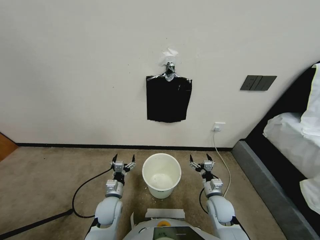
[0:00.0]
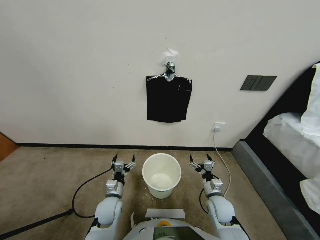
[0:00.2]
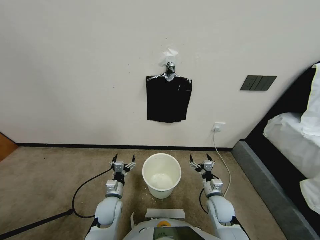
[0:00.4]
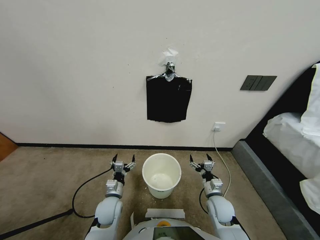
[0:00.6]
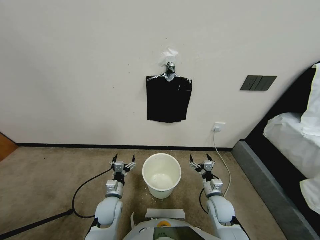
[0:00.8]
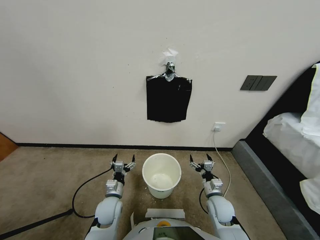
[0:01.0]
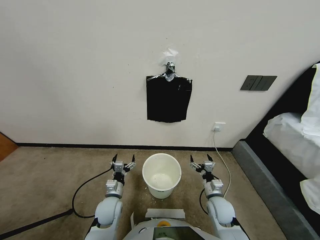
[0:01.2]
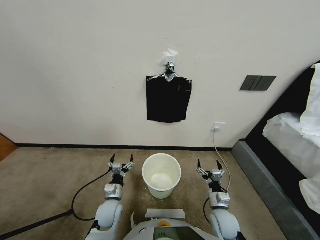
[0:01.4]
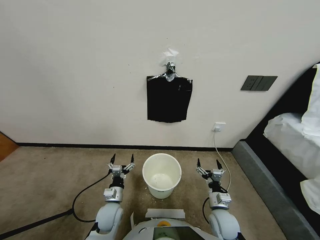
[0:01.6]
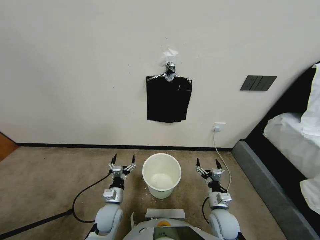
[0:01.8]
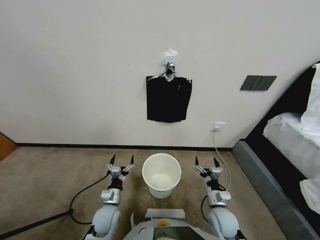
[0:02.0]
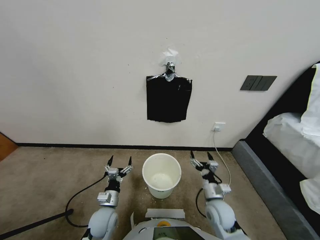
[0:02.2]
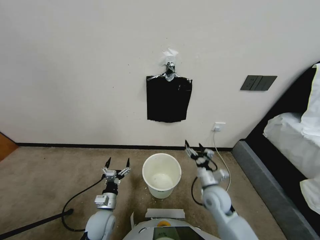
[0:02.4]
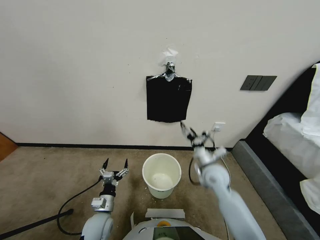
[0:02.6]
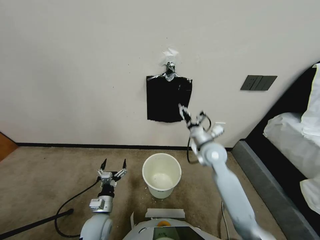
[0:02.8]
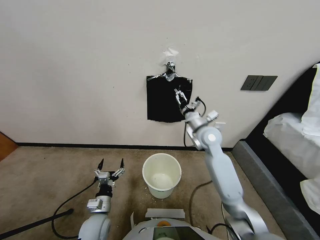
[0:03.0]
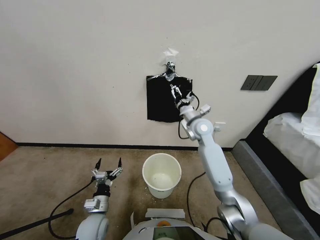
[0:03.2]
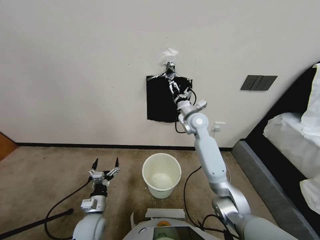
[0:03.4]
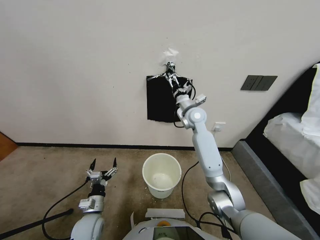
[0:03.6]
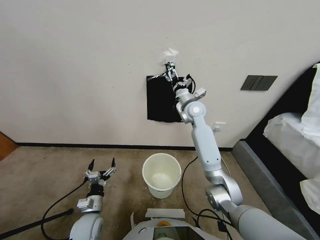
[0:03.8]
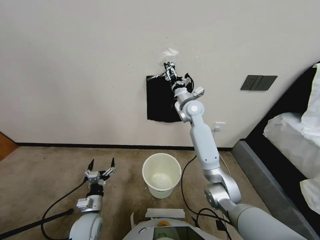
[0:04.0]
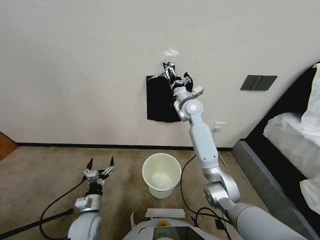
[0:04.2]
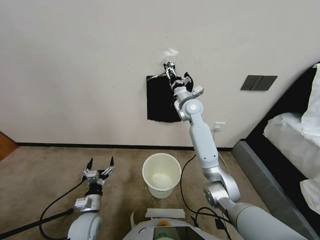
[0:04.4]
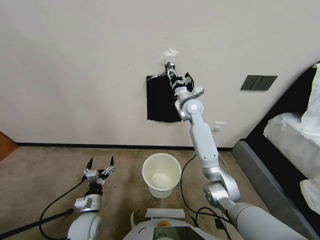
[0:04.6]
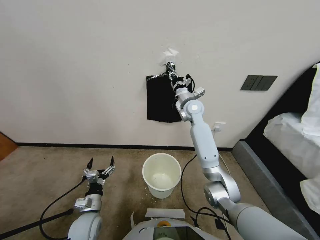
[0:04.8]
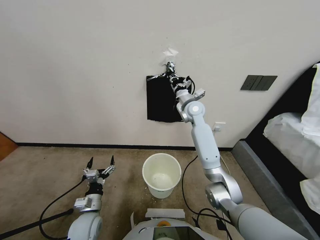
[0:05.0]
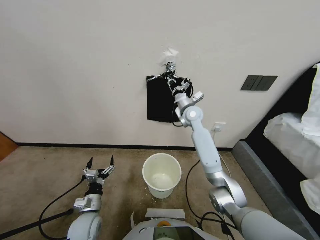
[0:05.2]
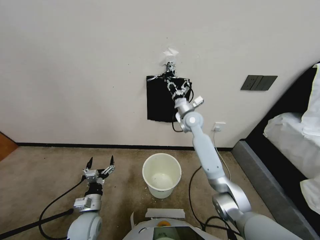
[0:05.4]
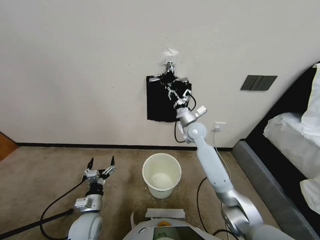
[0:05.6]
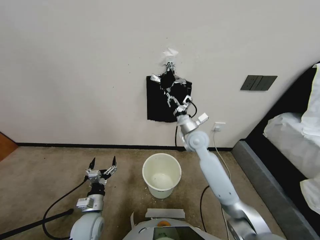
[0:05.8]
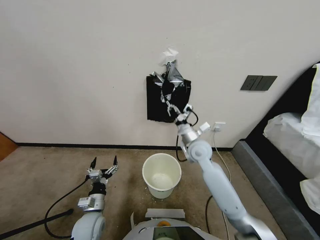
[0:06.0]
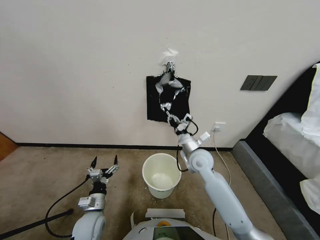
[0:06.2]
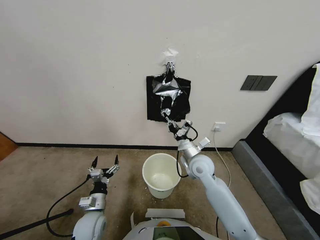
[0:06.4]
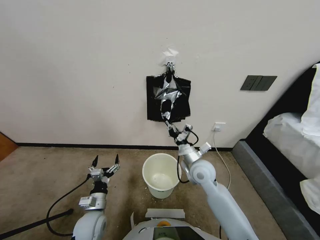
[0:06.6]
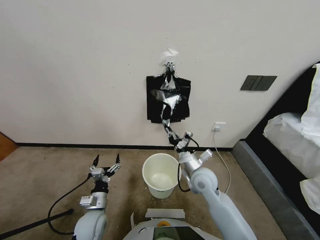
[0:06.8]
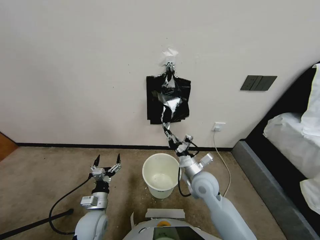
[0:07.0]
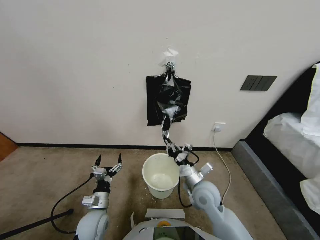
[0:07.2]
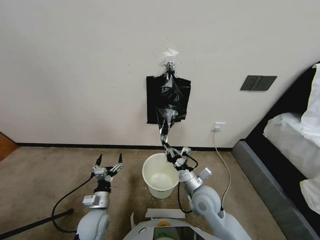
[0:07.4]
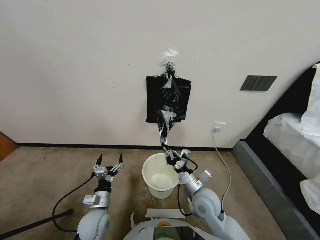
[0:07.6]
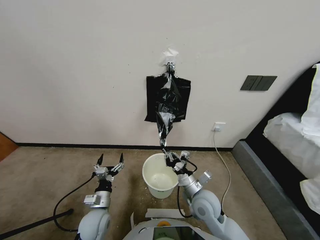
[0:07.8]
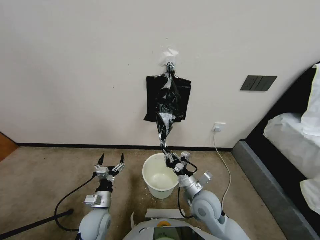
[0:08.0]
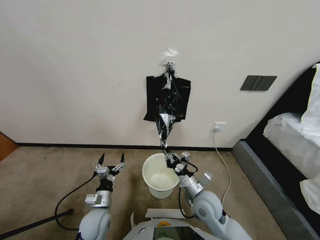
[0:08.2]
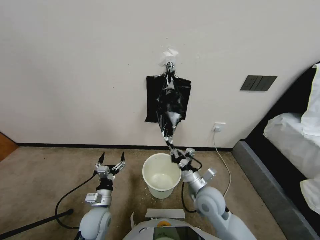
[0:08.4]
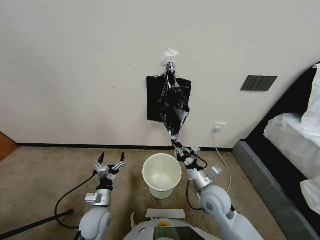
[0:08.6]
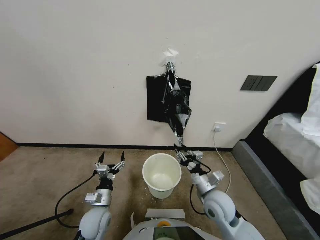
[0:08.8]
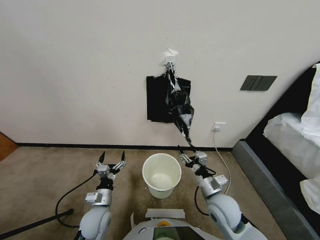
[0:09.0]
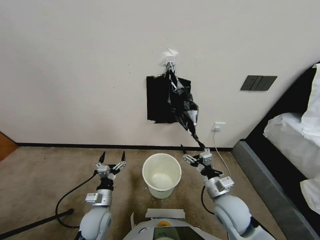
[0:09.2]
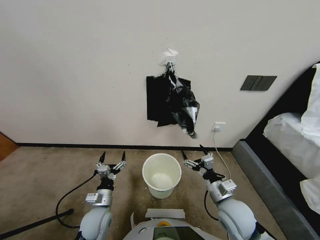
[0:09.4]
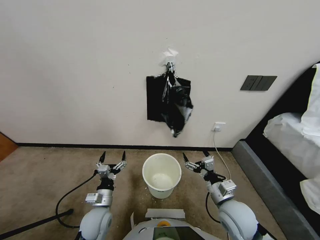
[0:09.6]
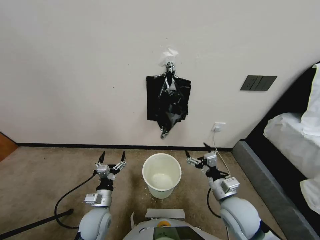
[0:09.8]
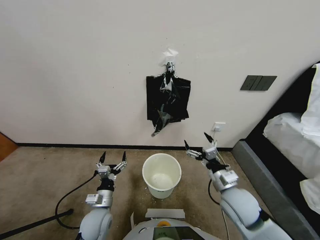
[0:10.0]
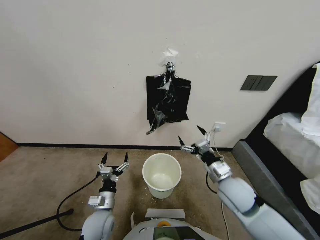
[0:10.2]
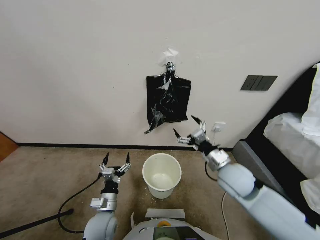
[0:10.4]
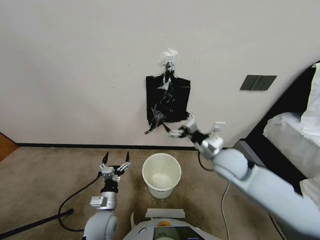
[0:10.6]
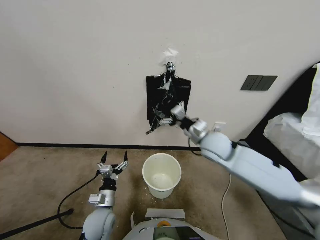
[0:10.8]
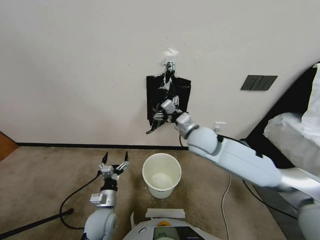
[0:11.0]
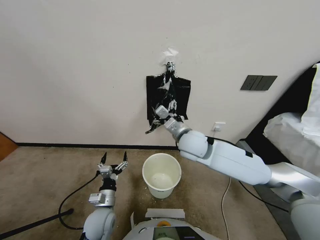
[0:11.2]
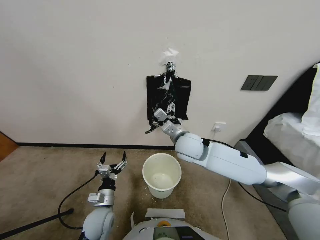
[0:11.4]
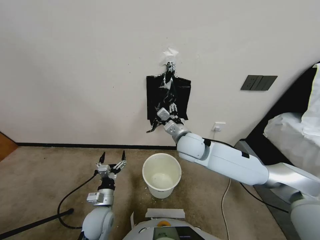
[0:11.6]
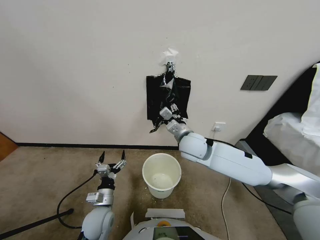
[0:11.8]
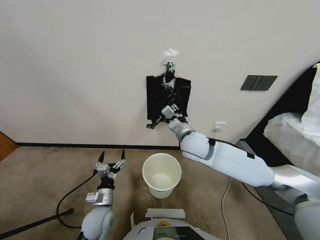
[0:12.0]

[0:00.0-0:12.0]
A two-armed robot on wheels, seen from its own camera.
Task of the whole recording: Place a trash bag onto the trash bin.
0:01.6 to 0:03.0: The right gripper heads forward and upward, covering about 35 cm. Meanwhile the left gripper shifts by approximately 5 cm.
0:03.0 to 0:04.4: The right gripper shifts some 10 cm forward, and closes.
0:04.4 to 0:06.0: The right gripper moves backward and downward, some 20 cm, and closes.
0:06.0 to 0:07.6: The right gripper shifts roughly 15 cm backward and downward.
0:07.6 to 0:09.0: The right gripper goes some 5 cm to the right, and opens.
0:09.0 to 0:10.4: The right gripper travels upward and forward by roughly 15 cm.
0:10.4 to 0:12.0: The right gripper heads to the left and forward, covering about 10 cm, and closes up.

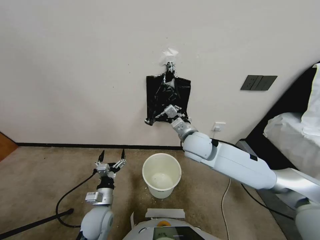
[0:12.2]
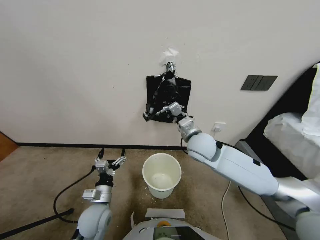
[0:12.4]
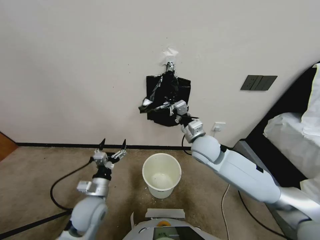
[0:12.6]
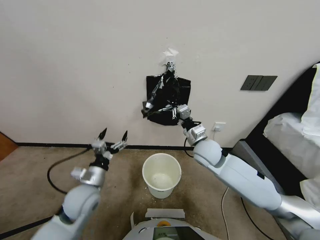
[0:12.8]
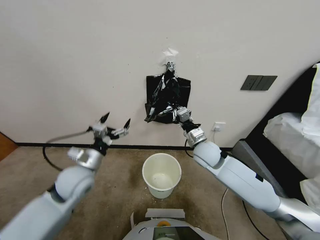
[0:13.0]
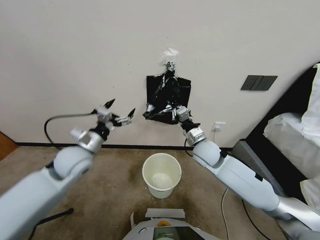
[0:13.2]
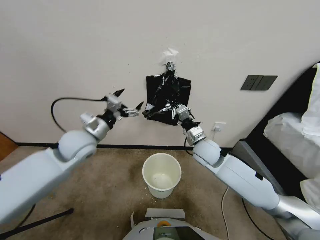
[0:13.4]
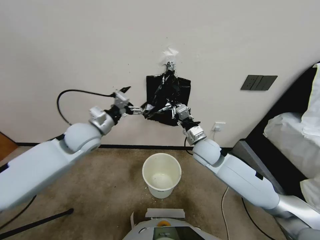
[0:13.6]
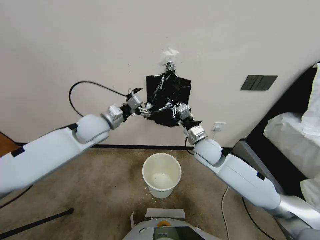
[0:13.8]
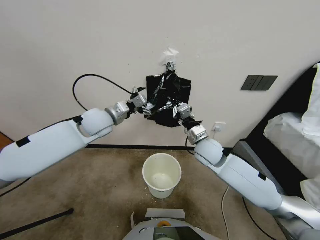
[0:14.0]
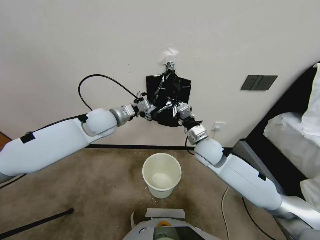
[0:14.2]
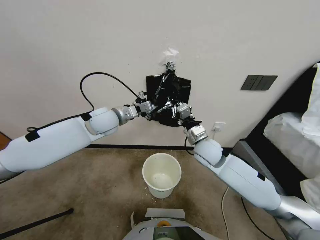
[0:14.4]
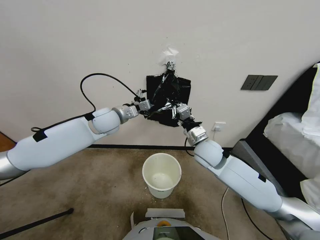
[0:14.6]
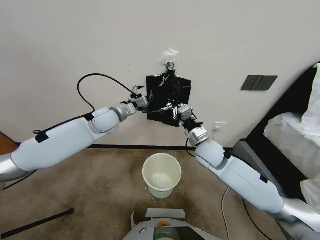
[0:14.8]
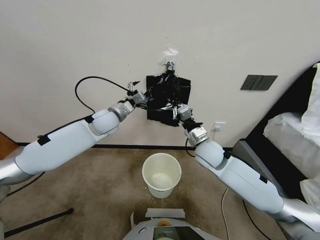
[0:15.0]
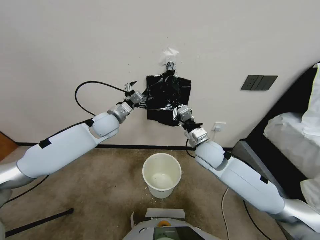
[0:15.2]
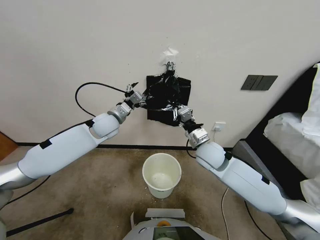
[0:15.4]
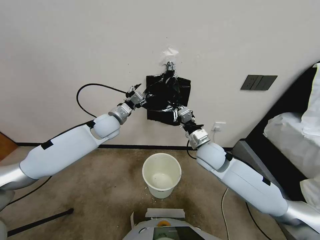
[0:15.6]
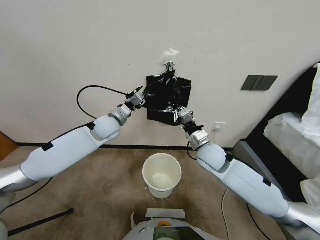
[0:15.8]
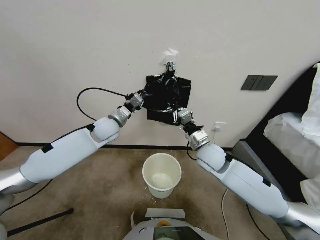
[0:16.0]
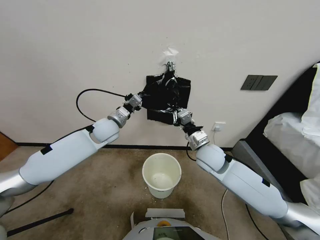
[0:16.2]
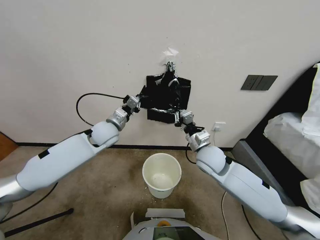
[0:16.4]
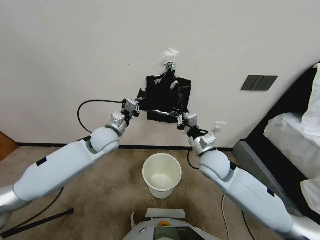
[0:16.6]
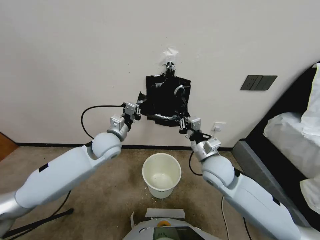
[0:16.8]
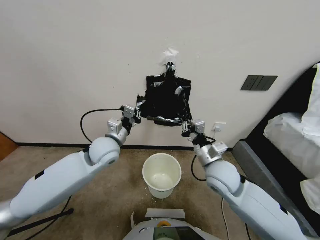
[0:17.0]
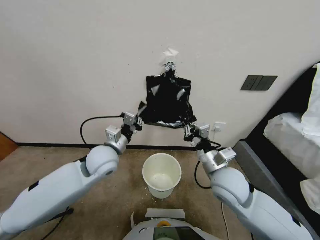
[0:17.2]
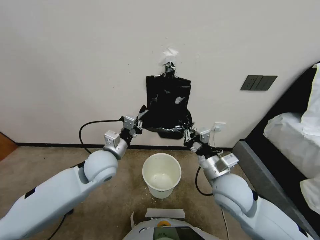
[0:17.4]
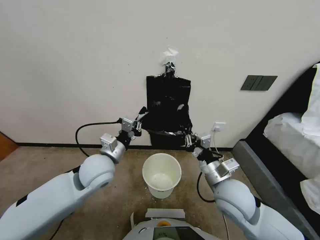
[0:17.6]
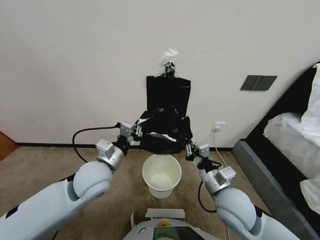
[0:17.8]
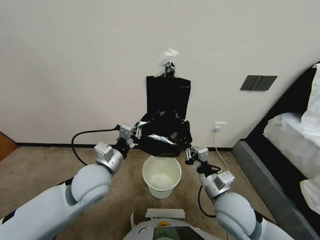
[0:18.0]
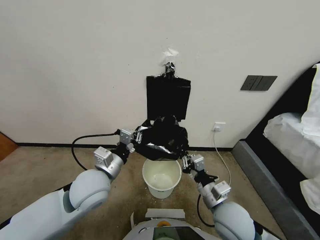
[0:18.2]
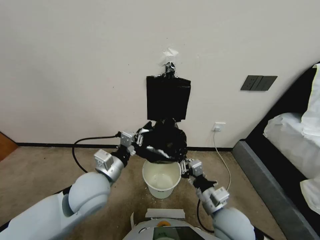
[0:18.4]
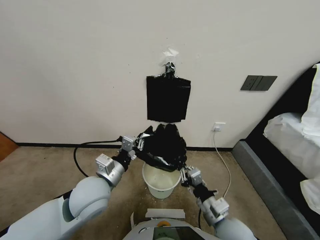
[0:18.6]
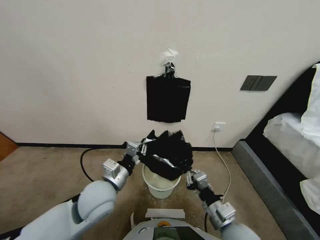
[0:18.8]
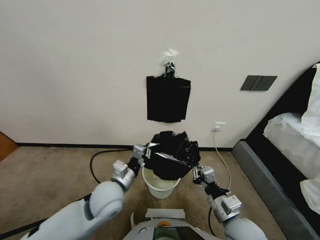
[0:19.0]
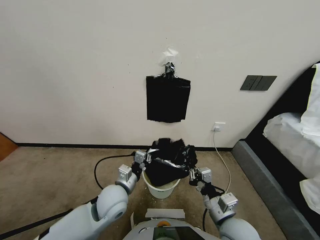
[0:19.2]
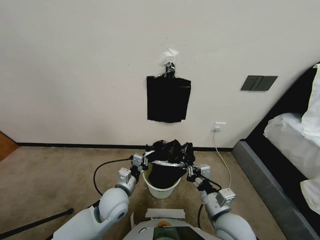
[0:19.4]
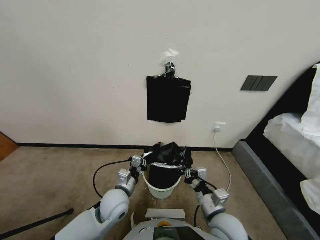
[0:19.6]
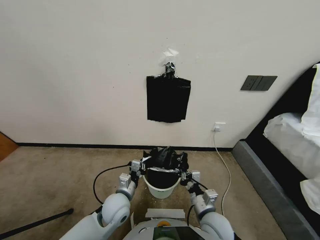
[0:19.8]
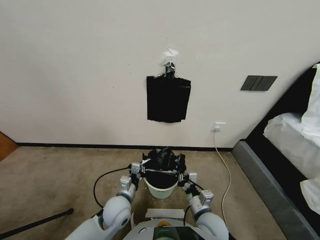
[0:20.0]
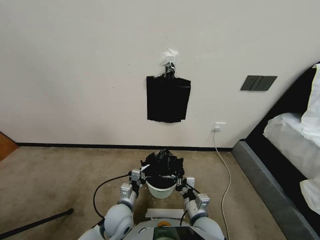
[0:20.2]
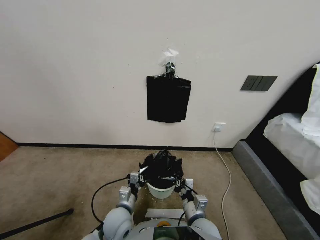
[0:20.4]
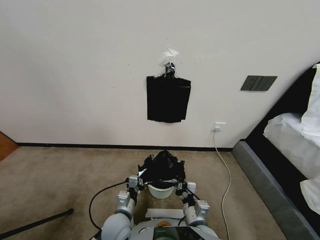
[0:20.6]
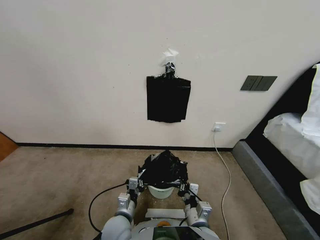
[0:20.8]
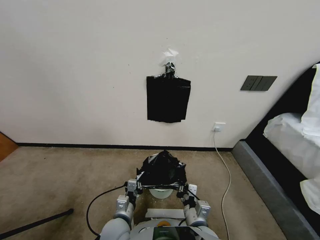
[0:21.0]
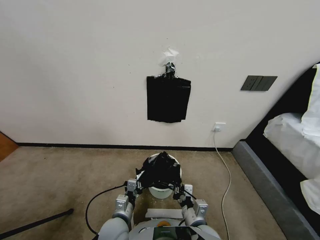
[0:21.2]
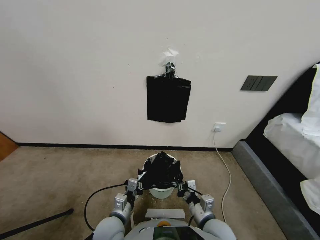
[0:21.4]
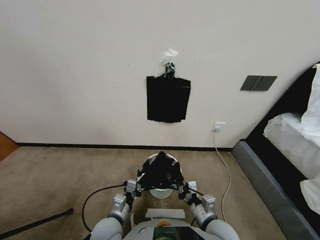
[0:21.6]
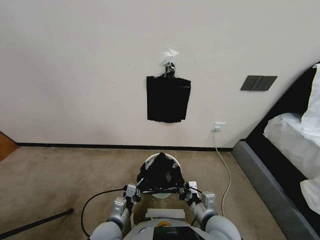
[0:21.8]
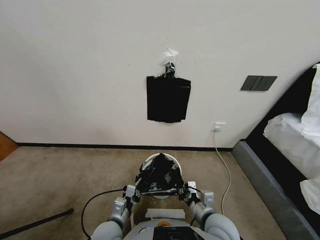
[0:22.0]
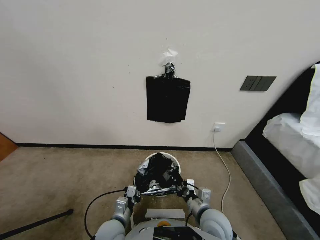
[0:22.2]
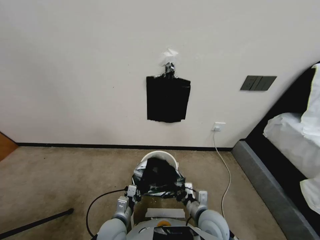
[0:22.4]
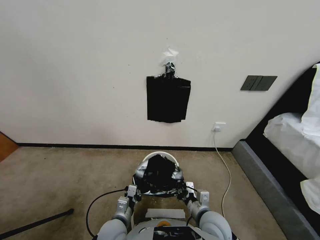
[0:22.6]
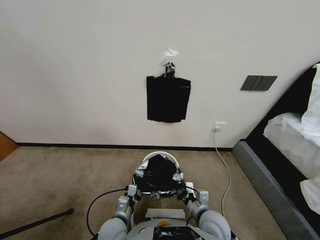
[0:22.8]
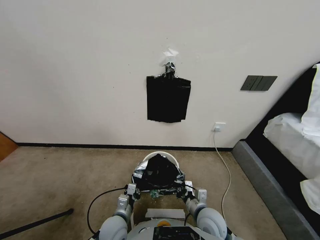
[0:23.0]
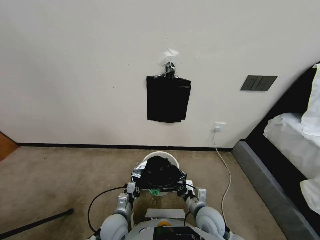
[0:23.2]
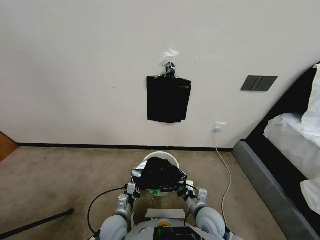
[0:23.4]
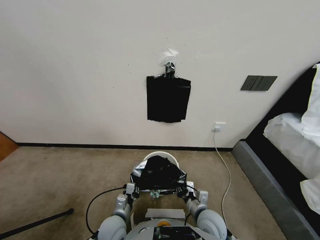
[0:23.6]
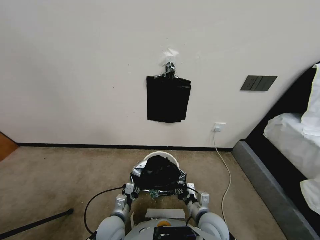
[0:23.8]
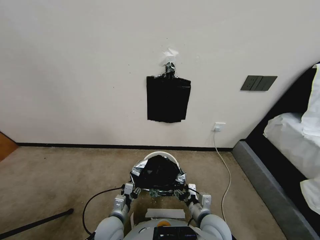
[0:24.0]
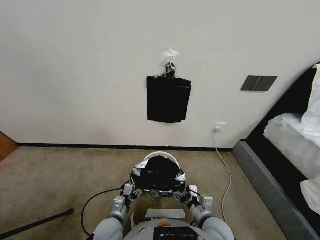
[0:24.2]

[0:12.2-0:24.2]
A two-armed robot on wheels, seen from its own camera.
Task of the whole recording: Place a trash bag onto the trash bin.
0:12.2 to 0:13.8: The left gripper moves upward and forward, roughly 35 cm; the right gripper changes place by about 5 cm.
0:13.8 to 0:15.2: The left gripper moves roughly 5 cm.
0:15.2 to 0:16.6: The grippers both shift backward by some 5 cm. The left gripper closes its fingers.
0:16.6 to 0:18.2: The two grippers go roughly 15 cm backward.
0:18.2 to 0:19.8: The left gripper shifts about 15 cm downward. The right gripper moves downward, some 10 cm.
0:19.8 to 0:21.2: The left gripper is displaced backward by about 5 cm.
0:21.2 to 0:22.6: The grippers move only a little.
0:22.6 to 0:24.2: The right gripper opens its fingers, while the left gripper opens its fingers.
